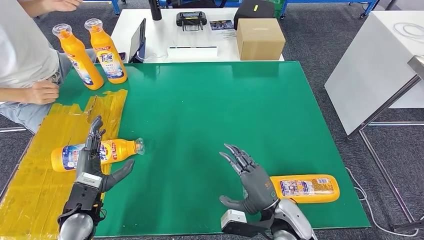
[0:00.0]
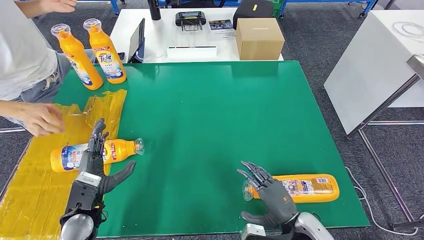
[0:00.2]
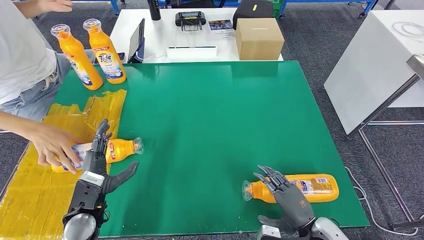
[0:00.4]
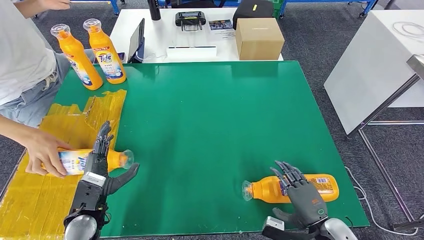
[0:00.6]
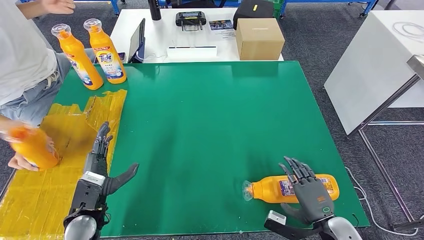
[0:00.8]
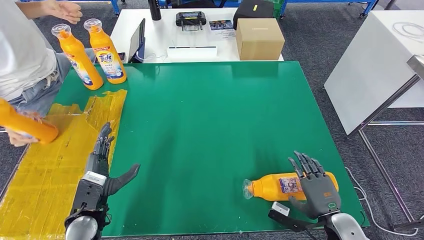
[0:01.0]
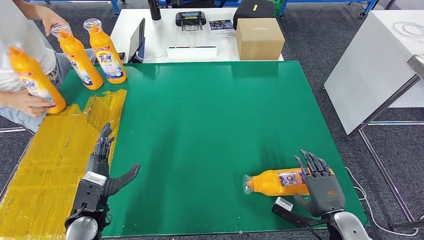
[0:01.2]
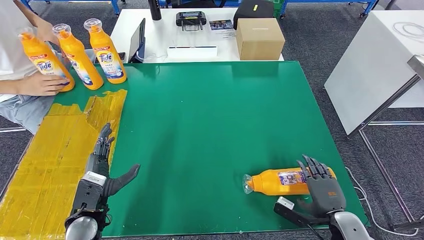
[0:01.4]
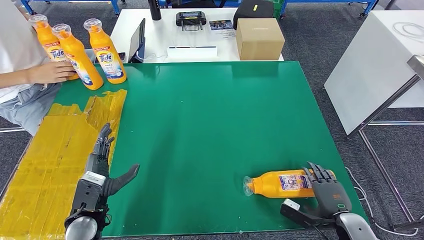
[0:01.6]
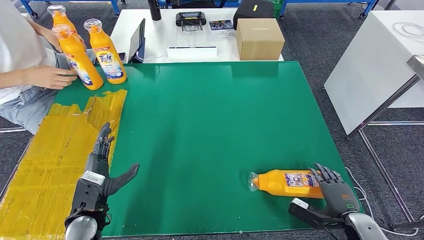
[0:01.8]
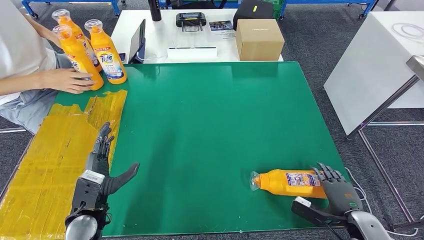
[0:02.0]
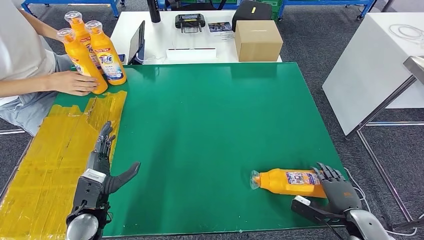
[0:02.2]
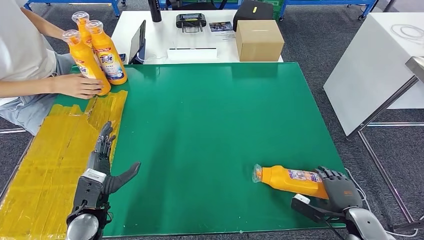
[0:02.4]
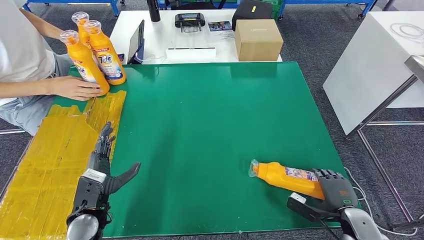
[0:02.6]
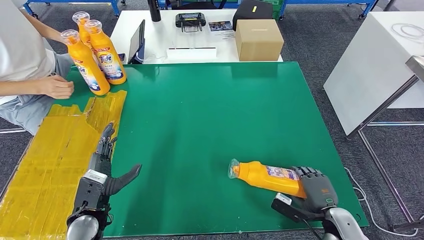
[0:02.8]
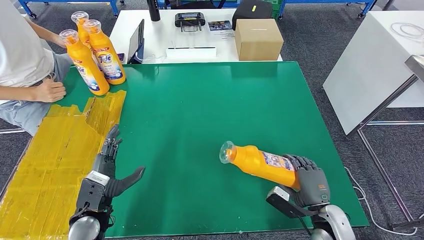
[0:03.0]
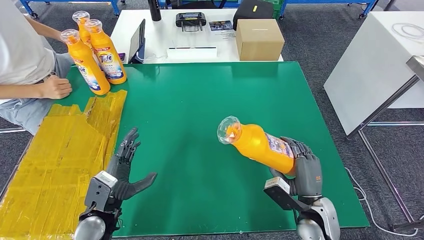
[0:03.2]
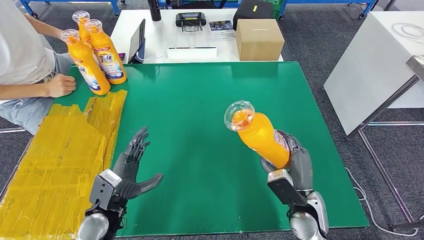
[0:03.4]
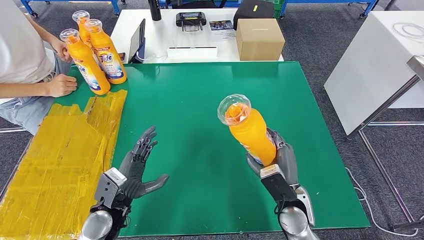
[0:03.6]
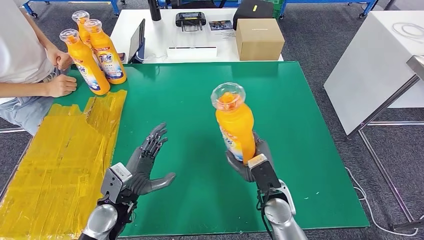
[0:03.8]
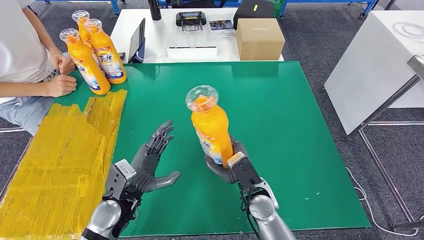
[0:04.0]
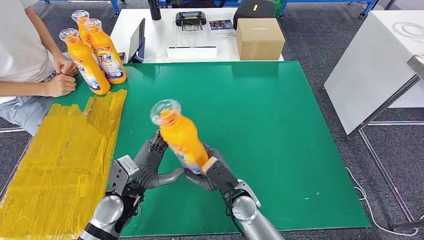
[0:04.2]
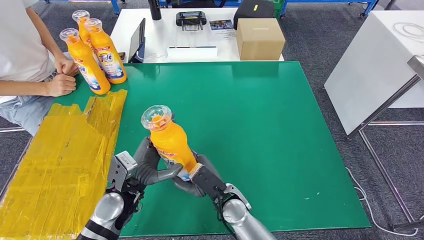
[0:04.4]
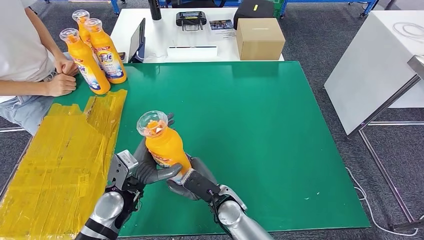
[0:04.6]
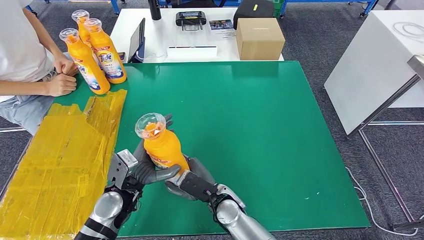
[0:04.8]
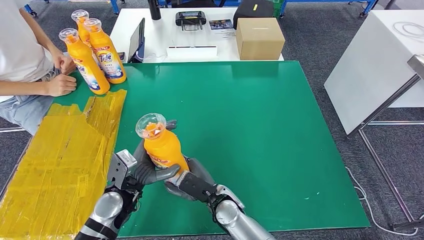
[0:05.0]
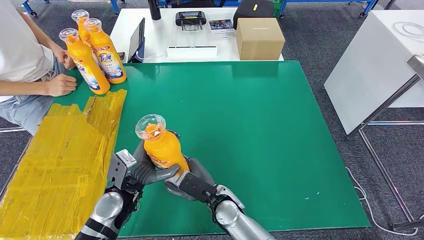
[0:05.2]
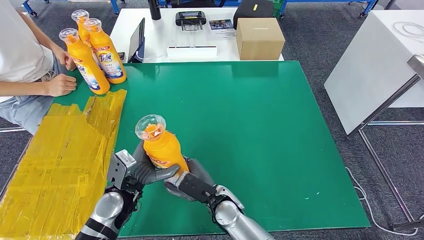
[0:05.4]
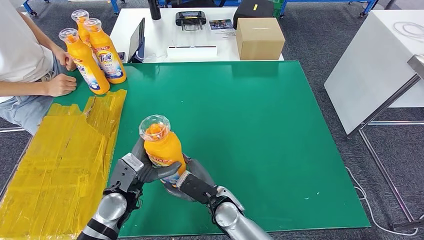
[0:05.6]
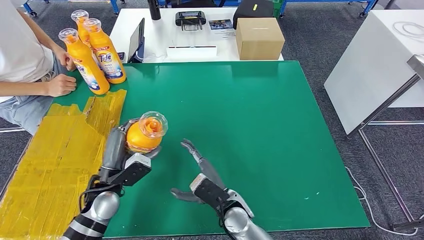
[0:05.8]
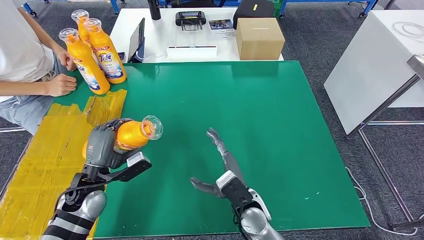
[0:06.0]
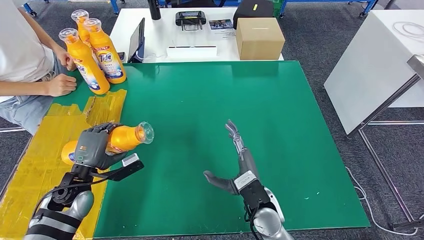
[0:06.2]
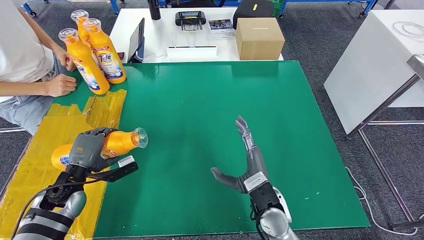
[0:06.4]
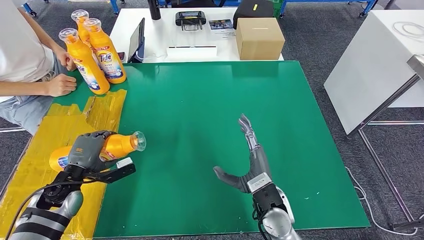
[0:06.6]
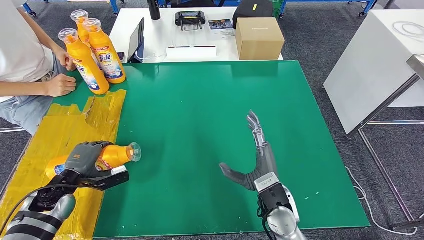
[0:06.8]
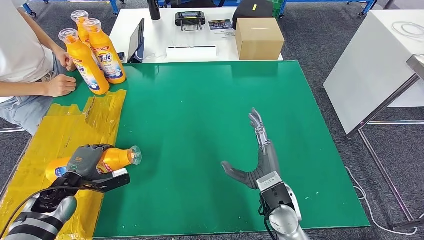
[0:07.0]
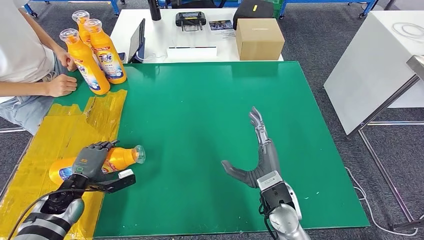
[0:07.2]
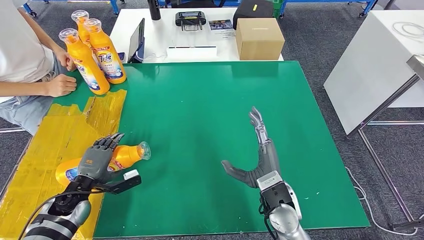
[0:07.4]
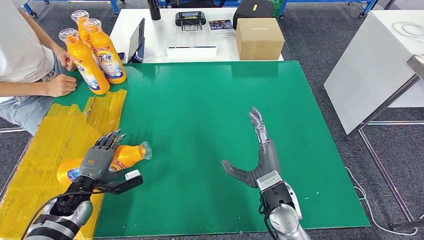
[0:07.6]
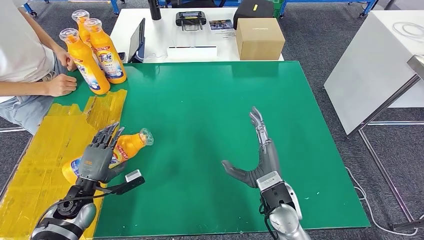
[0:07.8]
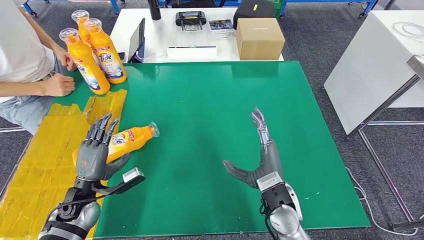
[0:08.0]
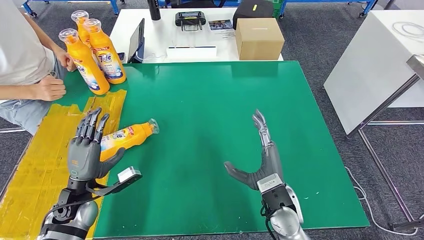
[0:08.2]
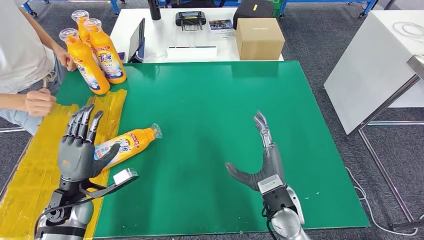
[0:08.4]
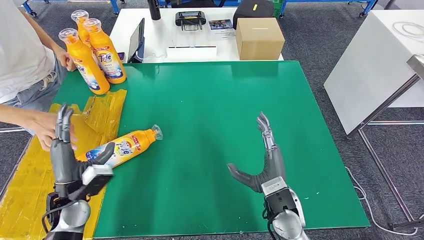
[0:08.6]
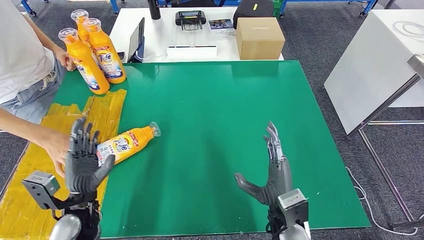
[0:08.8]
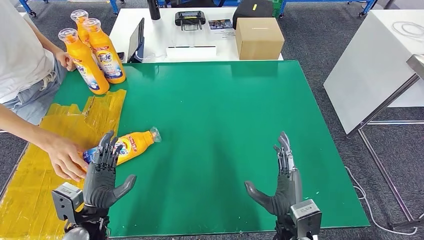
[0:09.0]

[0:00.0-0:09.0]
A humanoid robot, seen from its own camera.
Step, 0:00.0 to 0:03.8: Pick up the bottle from the table.
Step, 0:04.0 to 0:09.0: Flip the bottle to face forward.
0:00.0 to 0:01.6: The right hand heads to the right, covering some 15 cm.
0:01.6 to 0:03.0: The right hand ends up roughly 5 cm from where it was.
0:04.4 to 0:06.0: The left hand is displaced to the left by roughly 10 cm.
0:06.0 to 0:07.6: The right hand shifts roughly 5 cm to the right. Meanwhile the left hand goes some 10 cm downward and to the left.
0:07.6 to 0:09.0: The right hand is displaced backward by about 5 cm. The left hand travels backward and to the right by some 10 cm.

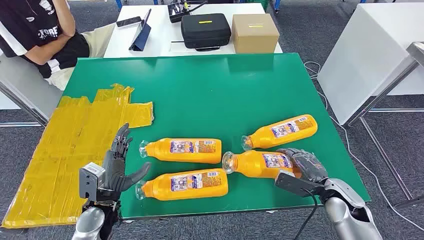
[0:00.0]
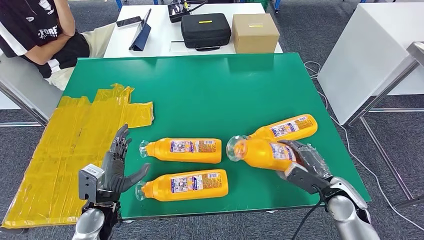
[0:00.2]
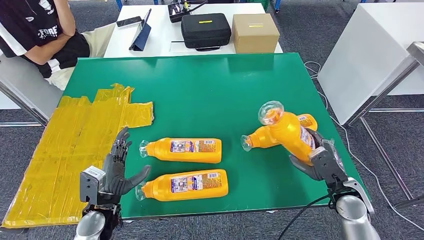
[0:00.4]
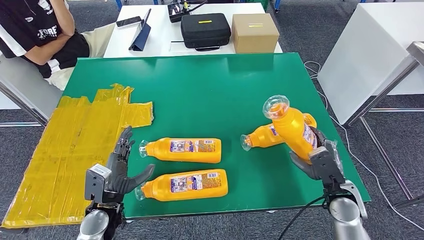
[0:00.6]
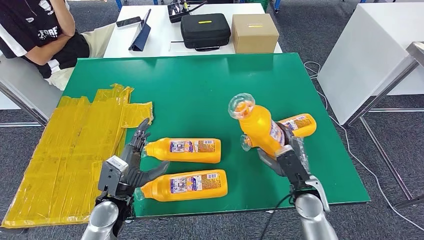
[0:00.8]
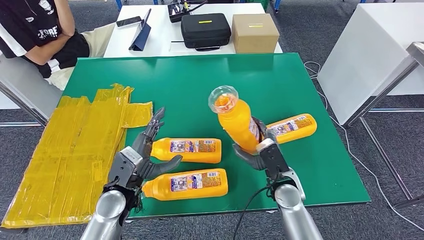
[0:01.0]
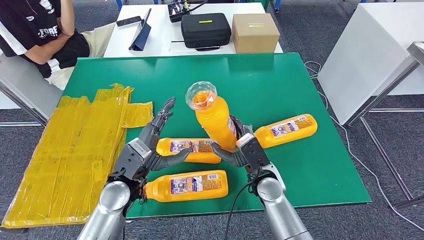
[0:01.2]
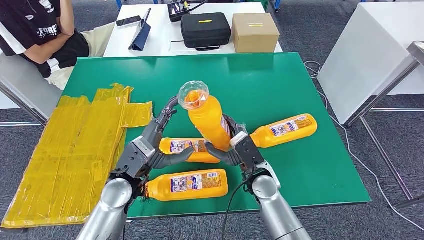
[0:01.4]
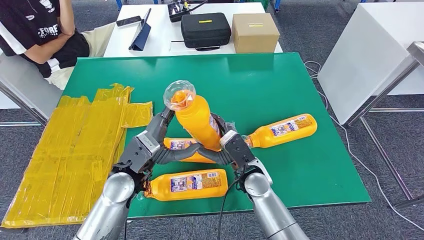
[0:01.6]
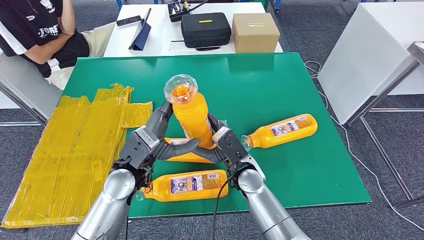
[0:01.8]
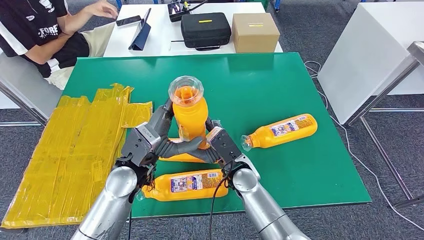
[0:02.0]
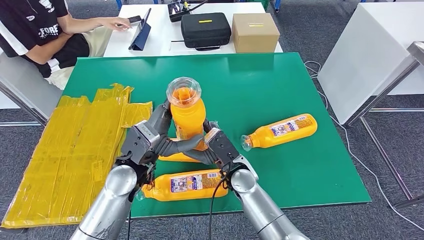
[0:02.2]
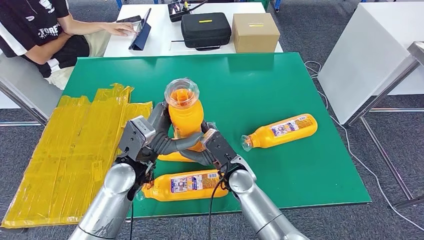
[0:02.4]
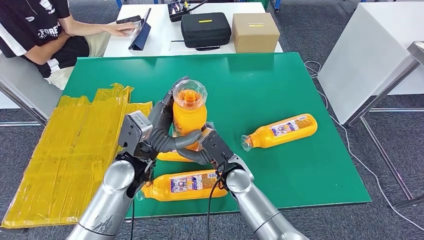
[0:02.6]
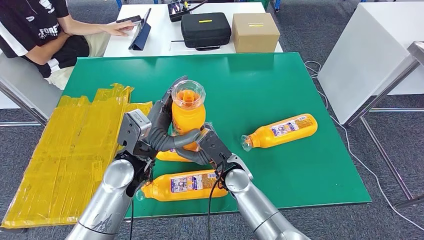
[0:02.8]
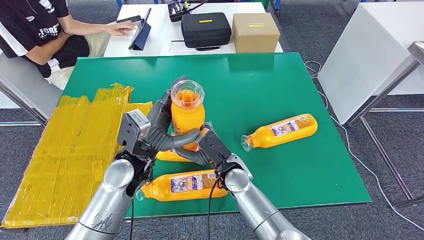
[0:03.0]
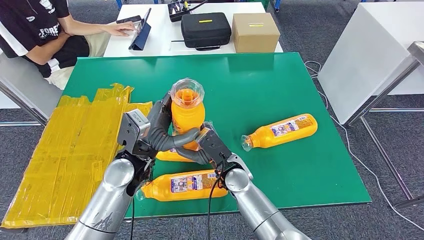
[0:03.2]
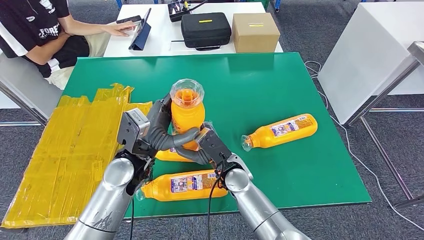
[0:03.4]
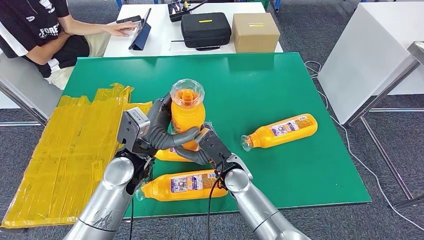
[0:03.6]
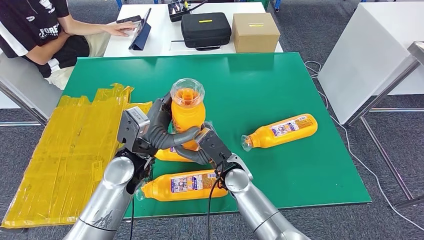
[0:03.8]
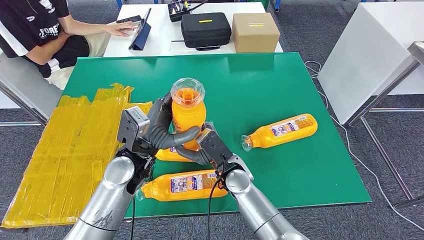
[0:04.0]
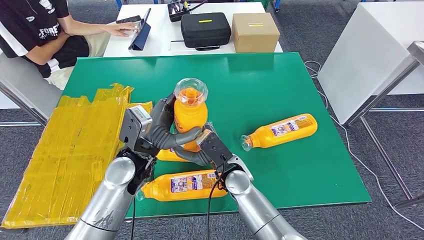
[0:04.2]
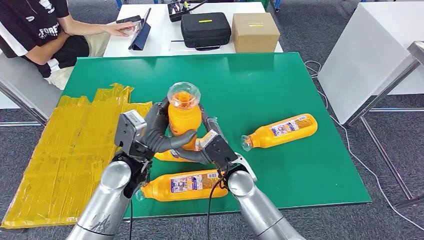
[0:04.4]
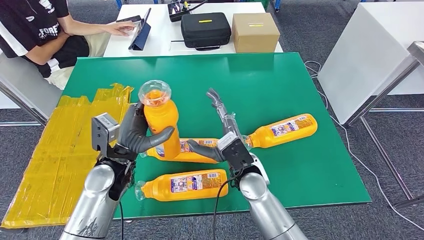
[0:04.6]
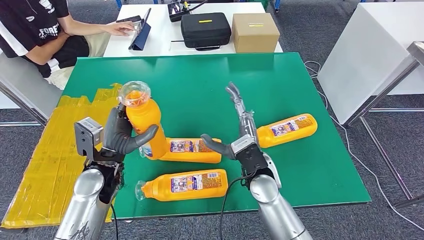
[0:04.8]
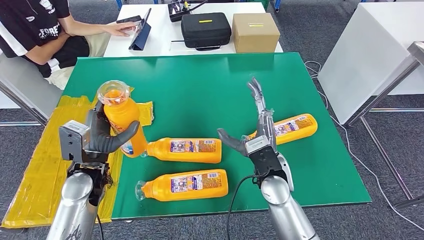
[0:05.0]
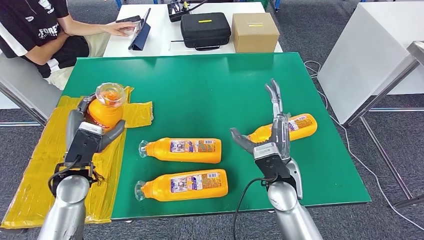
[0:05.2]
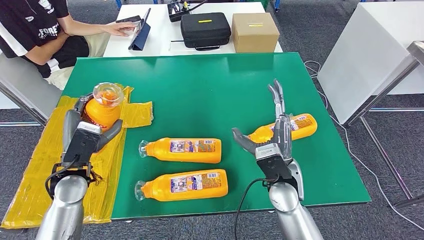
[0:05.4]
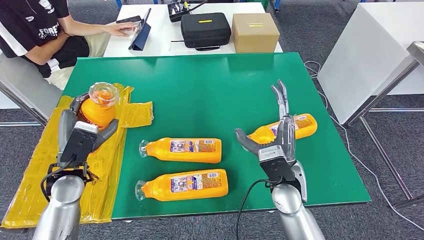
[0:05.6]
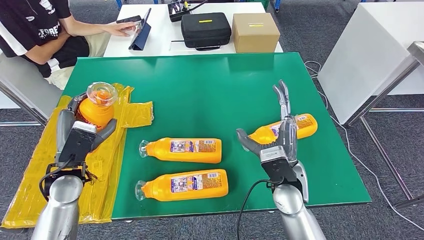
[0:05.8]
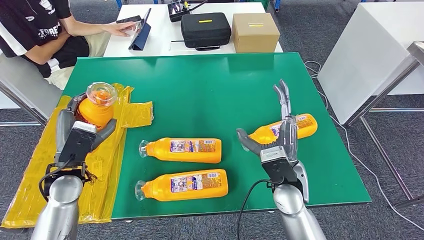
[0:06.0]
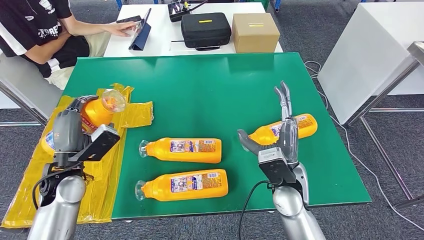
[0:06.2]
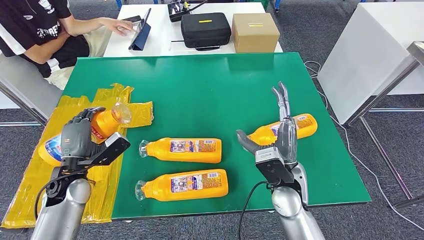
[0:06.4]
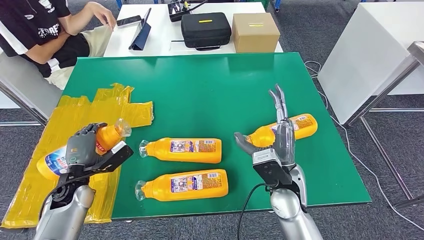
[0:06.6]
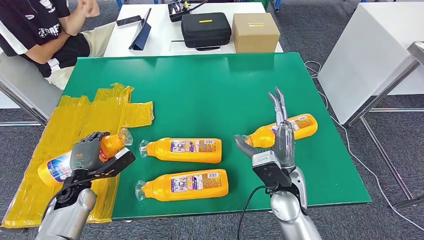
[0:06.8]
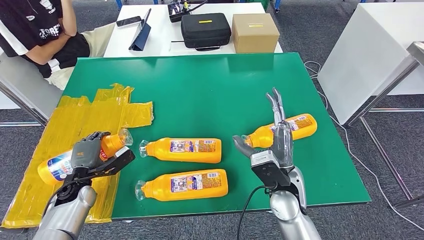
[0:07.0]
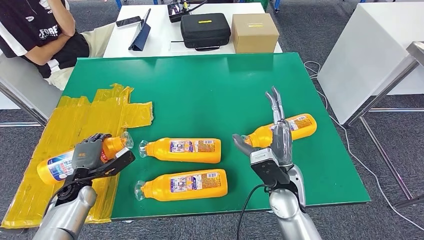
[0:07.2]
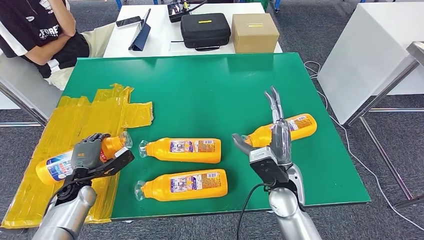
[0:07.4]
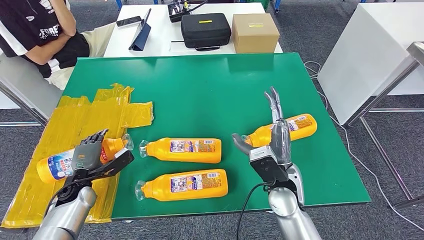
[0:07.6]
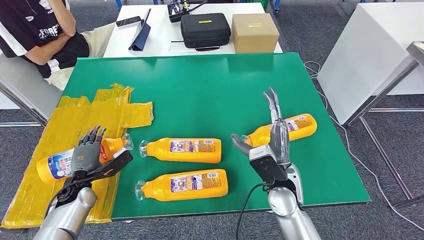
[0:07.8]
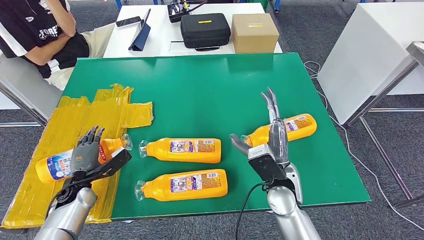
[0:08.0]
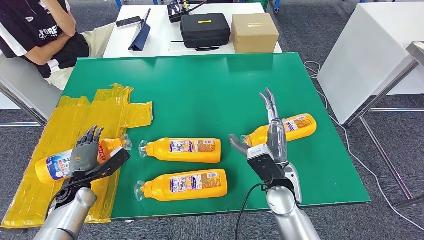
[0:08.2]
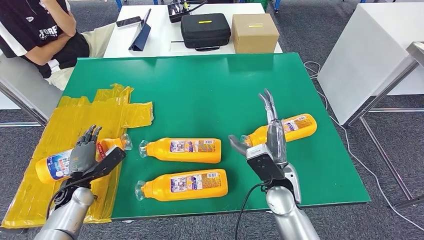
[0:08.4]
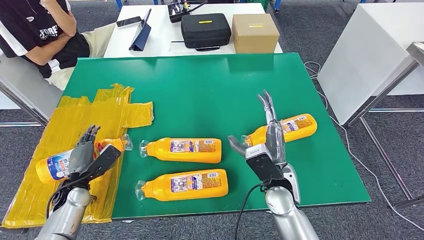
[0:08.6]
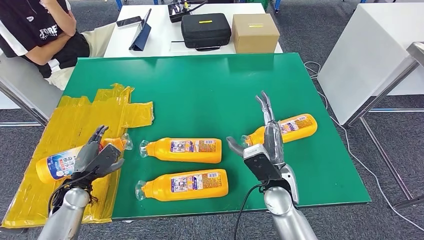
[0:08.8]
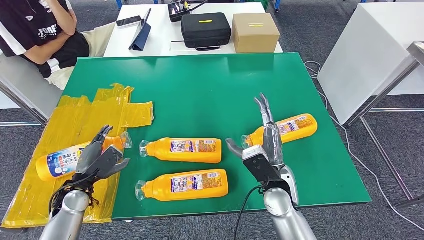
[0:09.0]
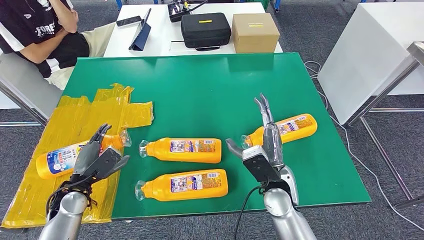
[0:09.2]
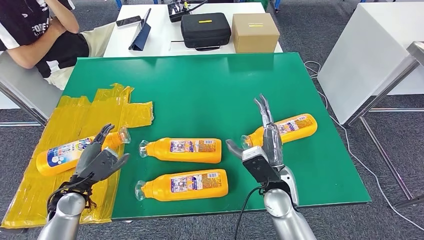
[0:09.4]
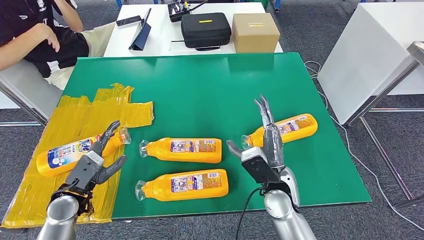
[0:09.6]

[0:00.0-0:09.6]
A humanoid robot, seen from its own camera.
Step, 0:00.0 to 0:03.8: Take the bottle from the table.
Step, 0:04.0 to 0:09.2: Flip the bottle to face forward.
0:01.6 to 0:03.2: The right hand is displaced to the left by about 5 cm.
0:03.2 to 0:04.8: The left hand goes approximately 10 cm to the left; the right hand heads to the right, covering some 5 cm.
0:04.8 to 0:06.4: The left hand shifts some 10 cm to the left. Meanwhile the right hand is displaced to the right by some 5 cm.
0:06.4 to 0:08.0: The left hand heads downward, covering approximately 10 cm.
0:08.0 to 0:09.6: The left hand goes roughly 5 cm upward.
